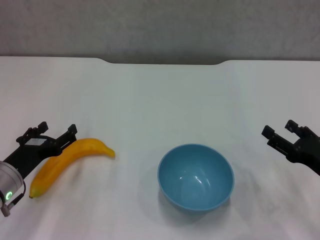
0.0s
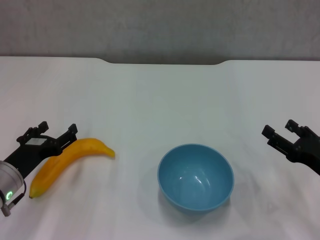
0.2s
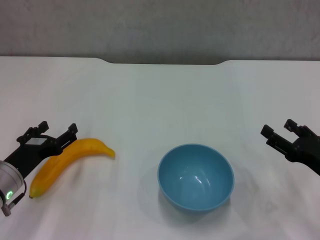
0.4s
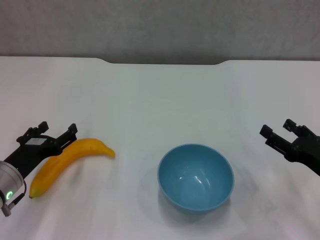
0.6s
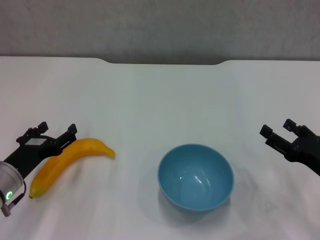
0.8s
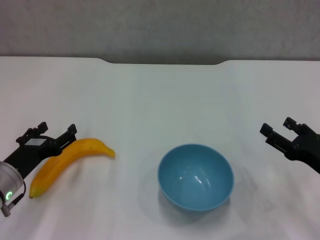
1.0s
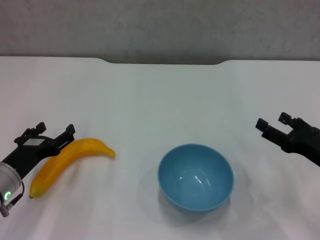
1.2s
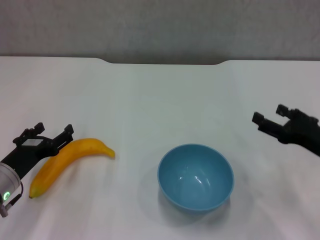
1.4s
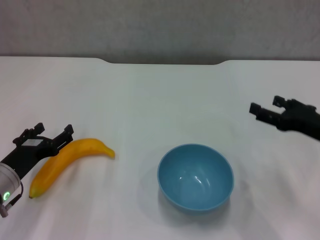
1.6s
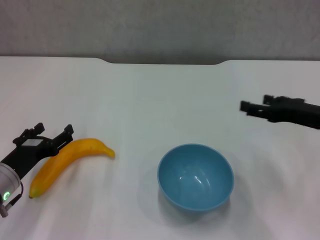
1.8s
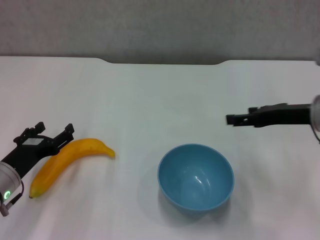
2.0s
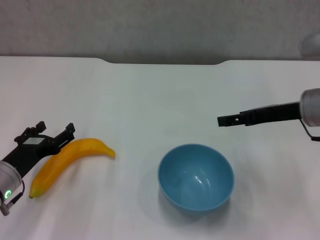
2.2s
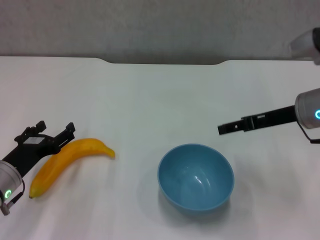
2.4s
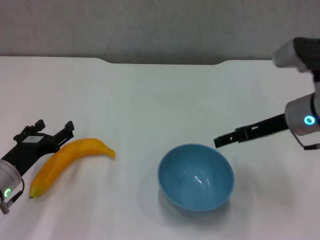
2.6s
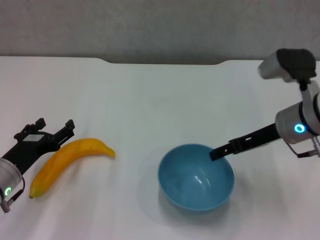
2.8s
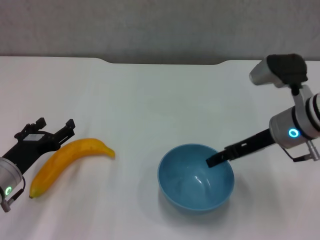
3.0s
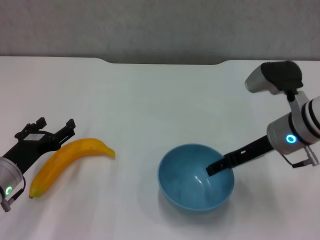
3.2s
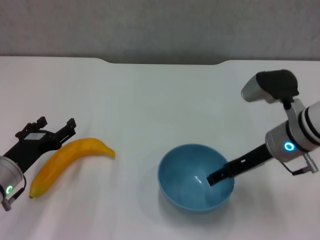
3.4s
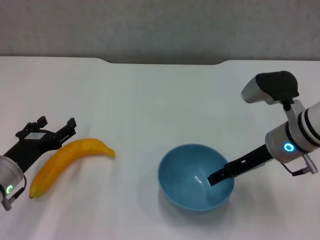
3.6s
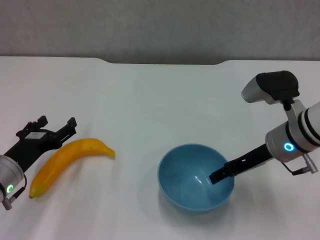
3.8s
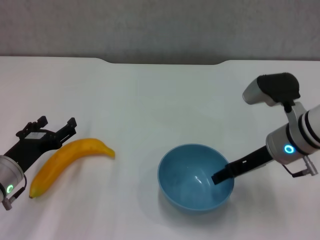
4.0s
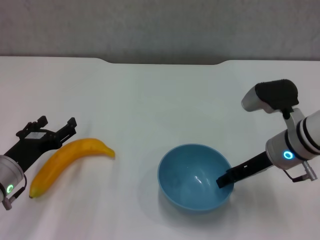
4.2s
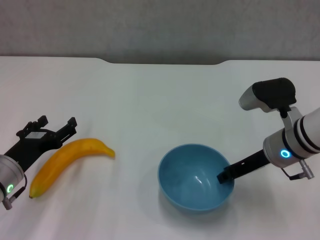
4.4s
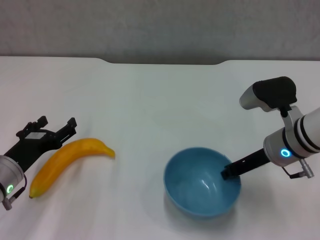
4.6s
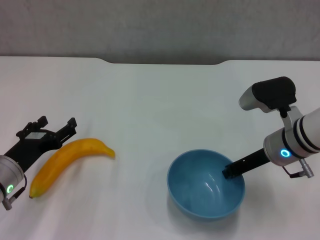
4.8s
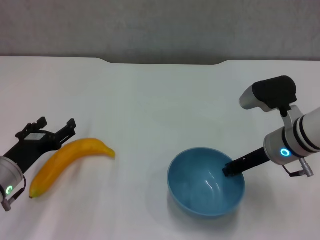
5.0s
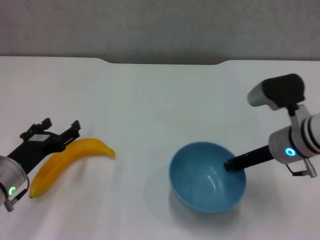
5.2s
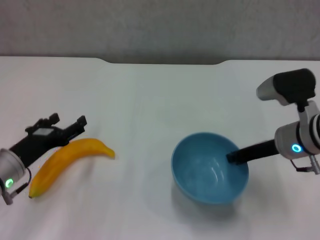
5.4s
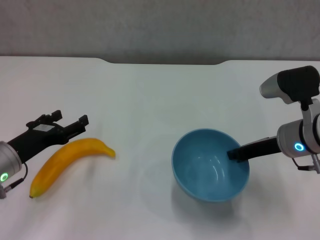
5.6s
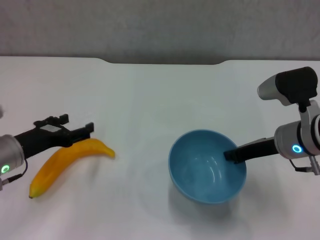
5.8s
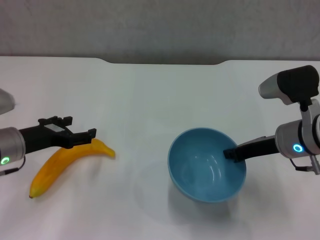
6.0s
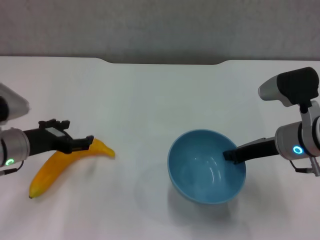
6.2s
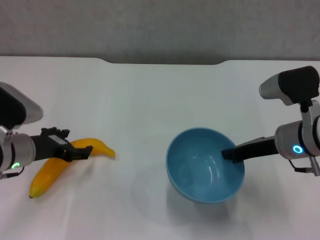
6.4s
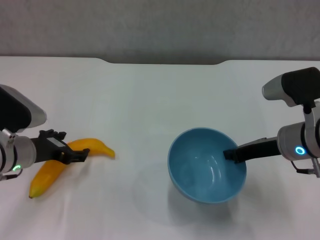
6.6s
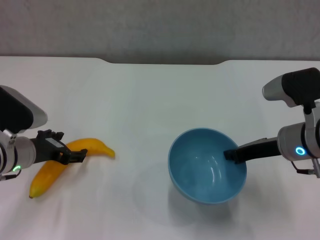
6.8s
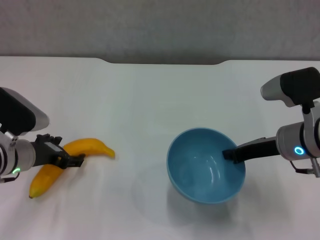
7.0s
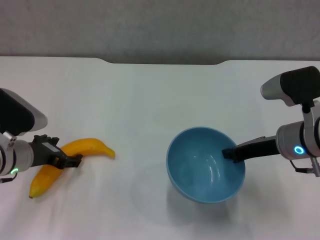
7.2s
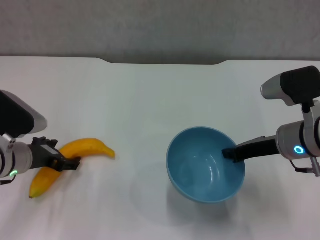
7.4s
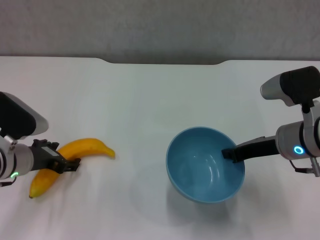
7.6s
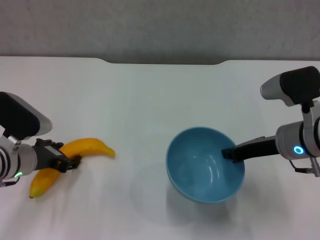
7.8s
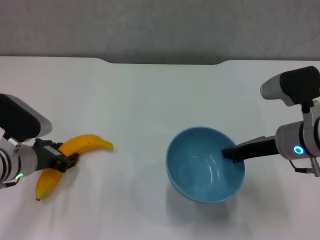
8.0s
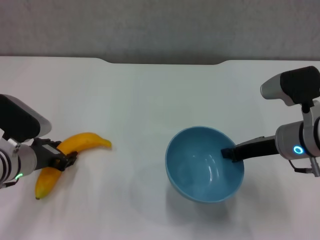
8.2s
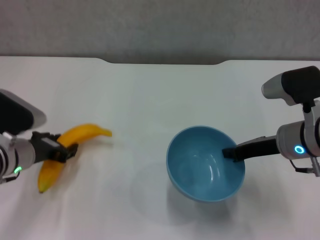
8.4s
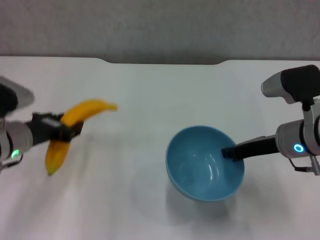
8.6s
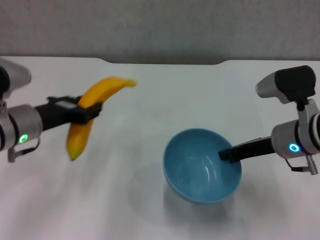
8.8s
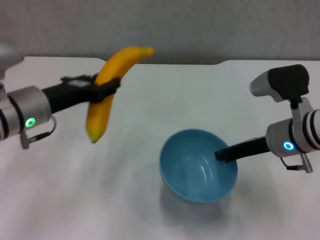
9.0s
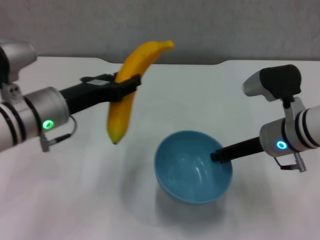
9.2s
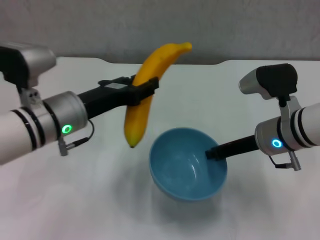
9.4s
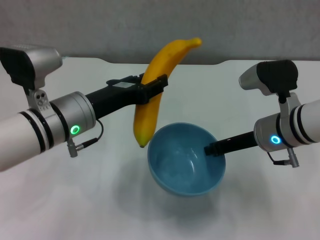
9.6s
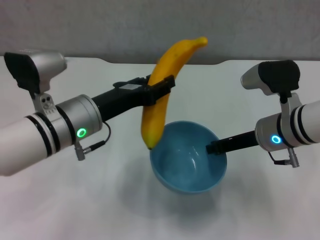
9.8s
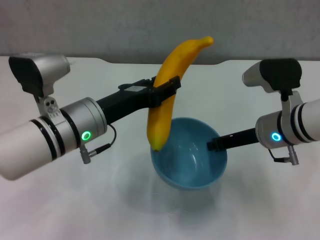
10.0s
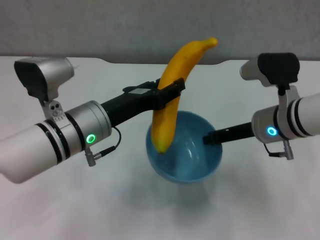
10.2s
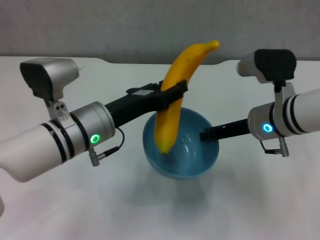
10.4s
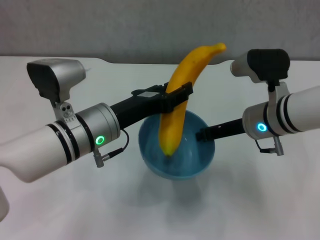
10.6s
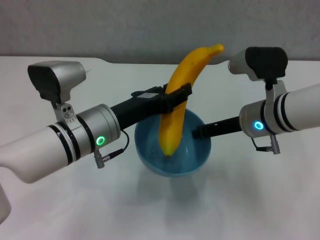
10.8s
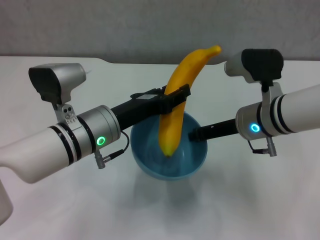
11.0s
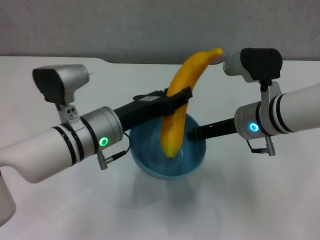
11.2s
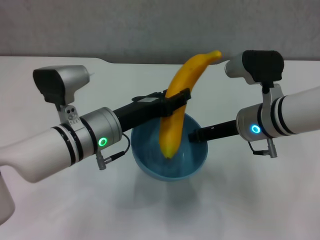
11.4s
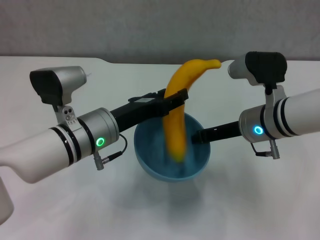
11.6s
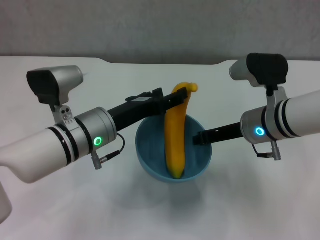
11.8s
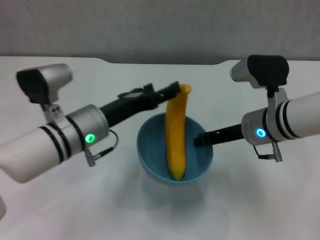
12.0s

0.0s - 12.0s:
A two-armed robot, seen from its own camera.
Step, 0.0s - 4.6s: Grasp the blue bowl with right gripper.
Step, 4.8s - 5.4s: Lift the blue bowl with right gripper.
Step, 5.6s - 8.0s: Grasp the banana with left gripper.
Step, 8.2s - 11.8s: Place the banana in the blue bowl with left gripper.
0.0s - 1.6s: The right gripper shifts approximately 5 cm upward.
1.6s - 3.0s: The right gripper heads to the left and forward, covering some 10 cm.
3.0s - 4.4s: The right gripper closes up.
4.4s - 6.0s: The left gripper changes place by some 5 cm. The right gripper closes.
7.6s - 9.0s: The left gripper is displaced upward by some 10 cm, and closes its fingers.
9.0s - 10.4s: The left gripper heads to the right, covering roughly 10 cm.
10.4s - 12.0s: The left gripper opens up.

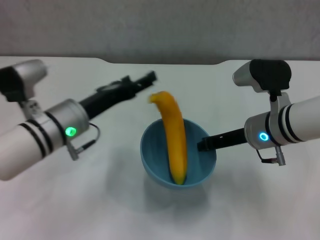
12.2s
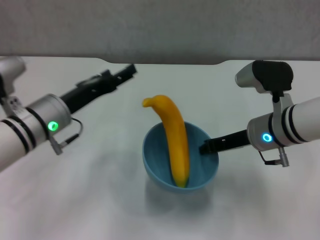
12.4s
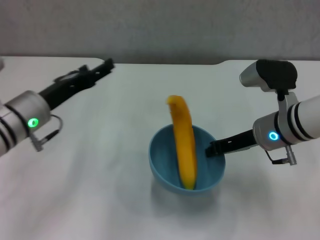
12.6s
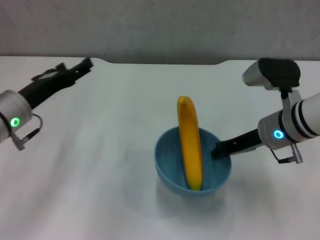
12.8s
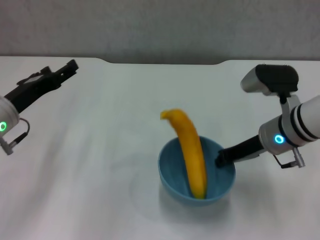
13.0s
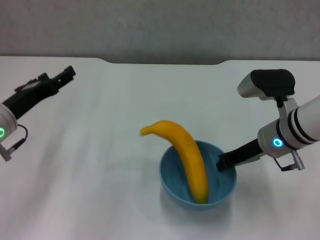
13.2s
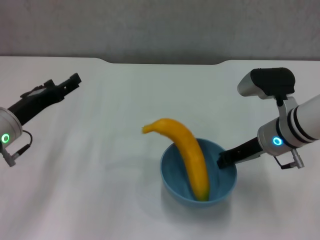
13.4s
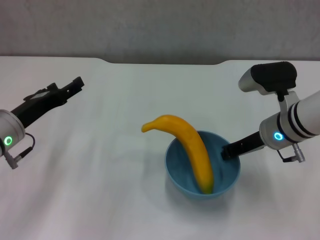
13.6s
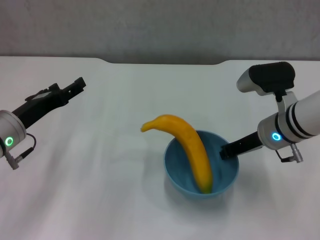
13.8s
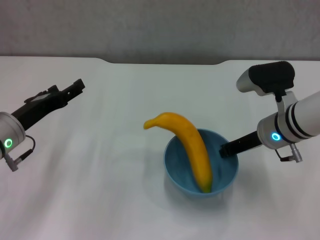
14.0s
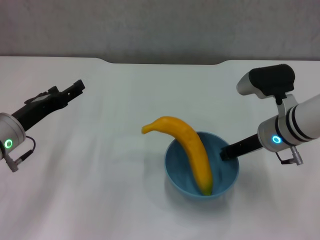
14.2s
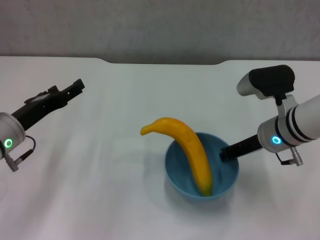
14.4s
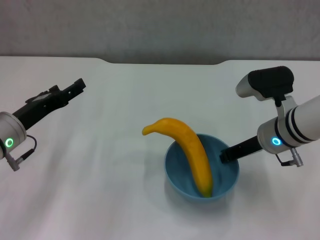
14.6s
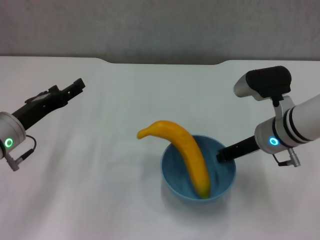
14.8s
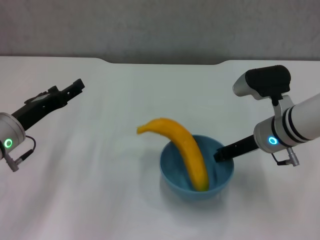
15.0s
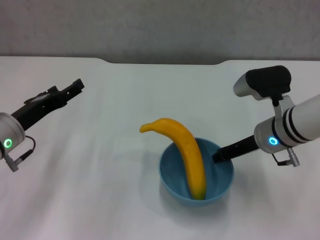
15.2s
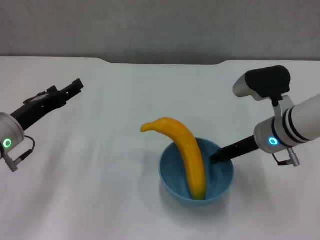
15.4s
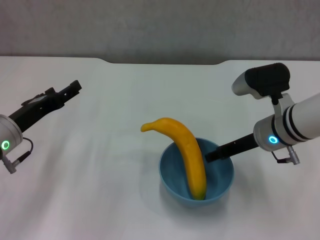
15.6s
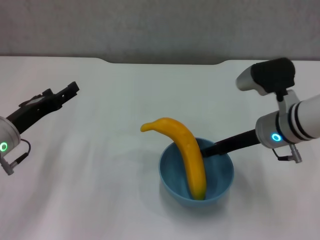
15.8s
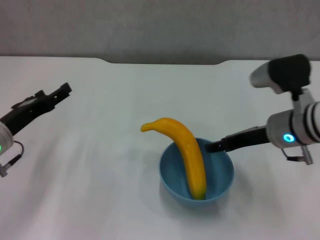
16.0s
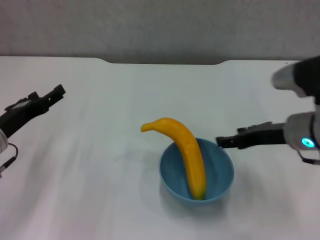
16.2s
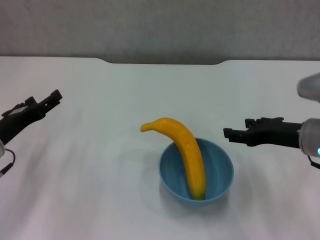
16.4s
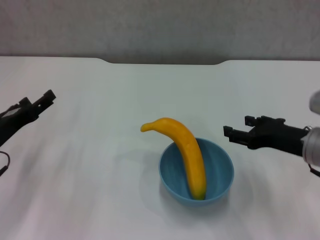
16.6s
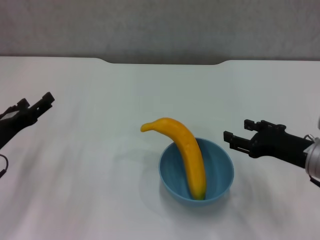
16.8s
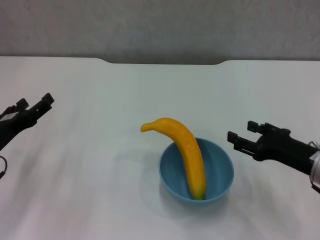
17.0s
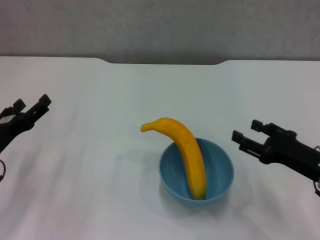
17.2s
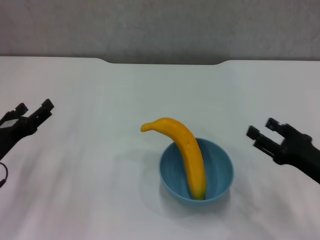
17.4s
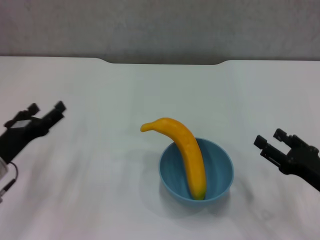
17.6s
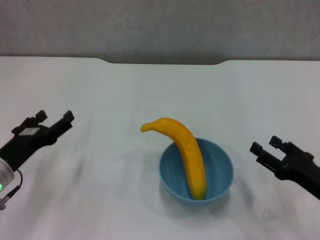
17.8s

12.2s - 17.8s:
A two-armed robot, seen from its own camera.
Step, 12.2s - 15.8s: Place the bowl on the table with right gripper.
12.2s - 13.6s: The left gripper shifts approximately 10 cm to the left.
13.6s - 15.0s: Both grippers stay about where they are.
15.0s - 16.4s: The right gripper is displaced backward and to the right by roughly 10 cm, and opens.
16.4s - 17.8s: The right gripper shifts roughly 15 cm downward, backward and to the right.

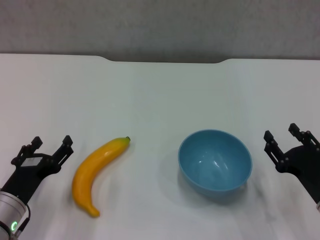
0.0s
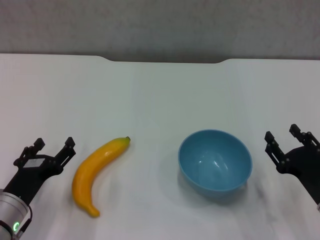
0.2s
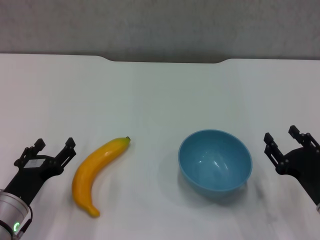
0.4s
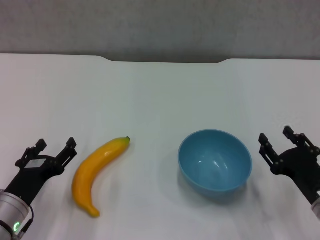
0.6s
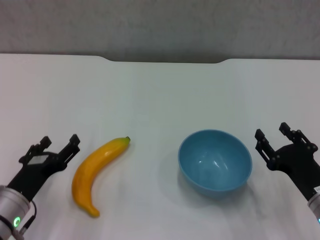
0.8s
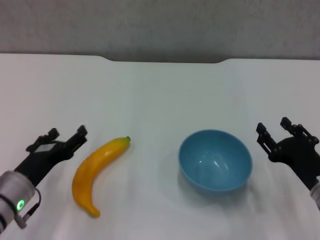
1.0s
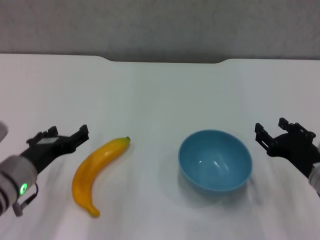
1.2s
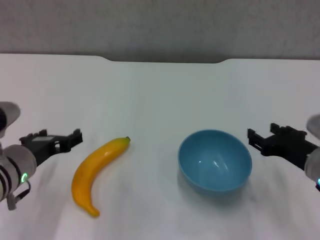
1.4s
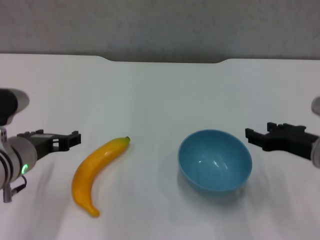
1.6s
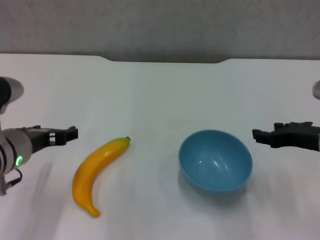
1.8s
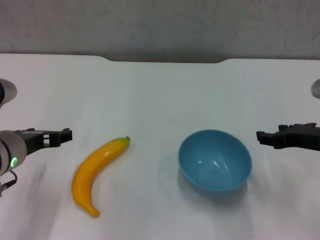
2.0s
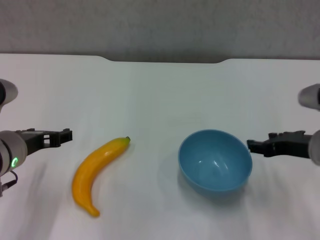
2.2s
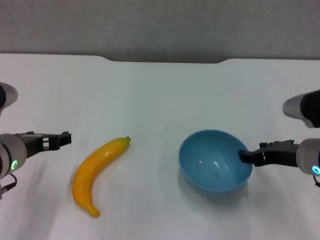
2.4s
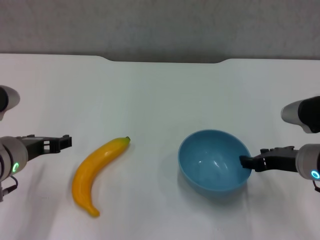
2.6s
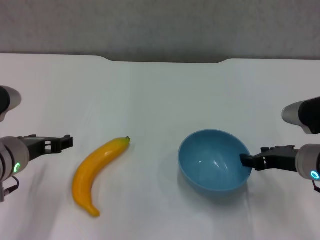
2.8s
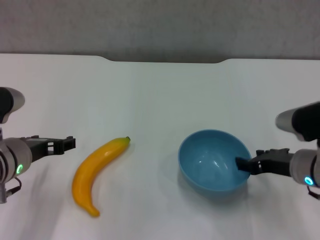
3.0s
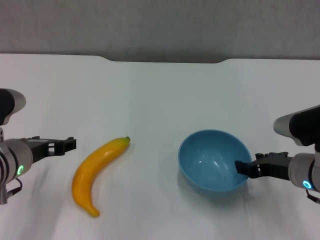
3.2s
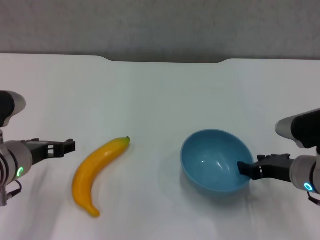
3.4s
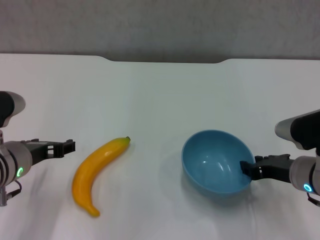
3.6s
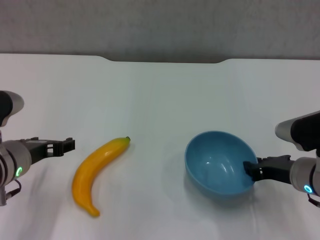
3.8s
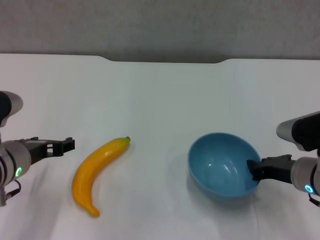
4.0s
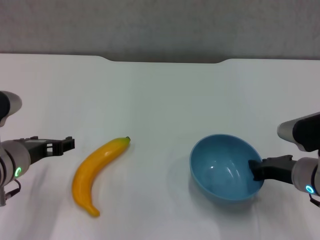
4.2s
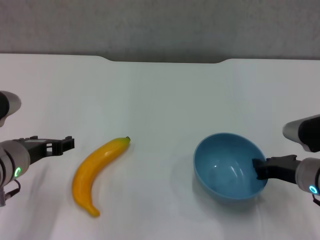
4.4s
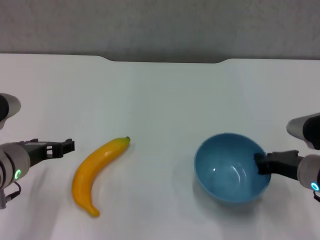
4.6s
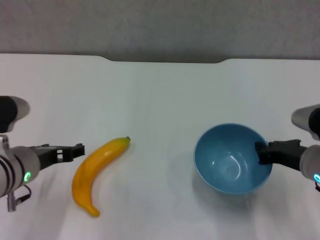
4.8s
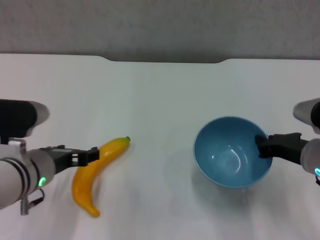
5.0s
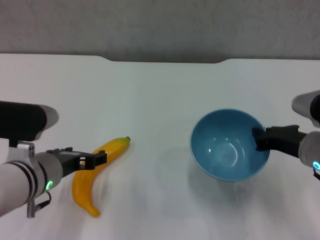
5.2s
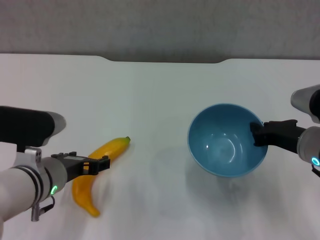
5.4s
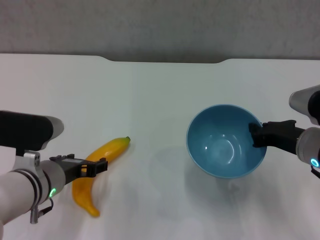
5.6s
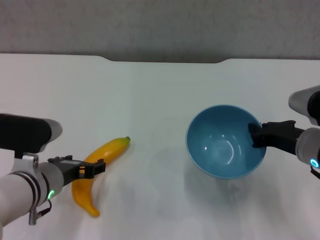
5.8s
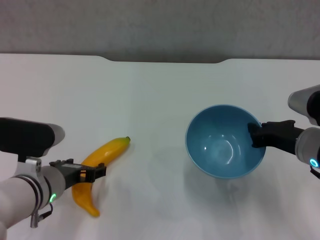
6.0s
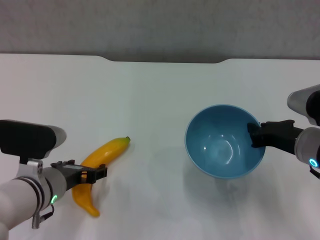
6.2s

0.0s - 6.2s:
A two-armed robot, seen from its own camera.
Step, 0.0s - 4.2s: Grasp the blue bowl with right gripper.
Step, 4.4s - 5.4s: Lift the blue bowl with right gripper.
0.0s - 1.6s: The grippers both shift upward and forward by some 10 cm.
1.6s - 3.2s: The grippers stay close to where they were, moving slightly.
3.2s - 4.6s: The right gripper closes its fingers.
4.6s - 6.2s: The left gripper travels downward by roughly 5 cm.
